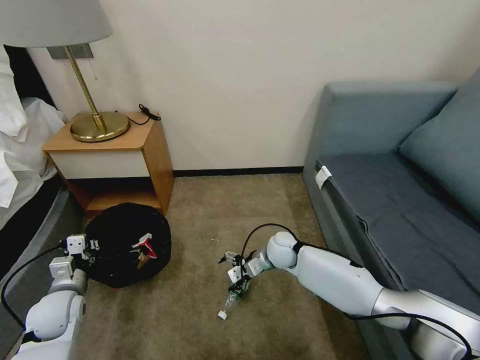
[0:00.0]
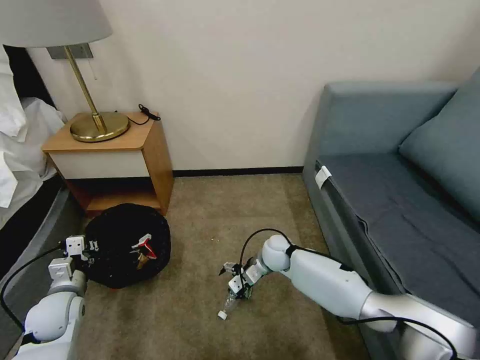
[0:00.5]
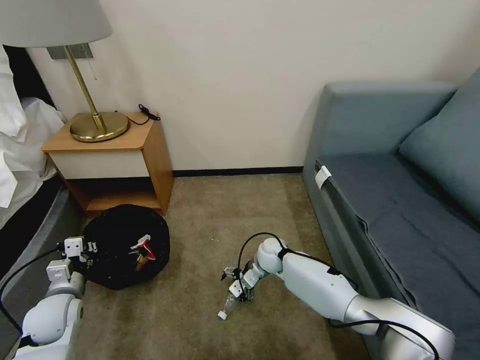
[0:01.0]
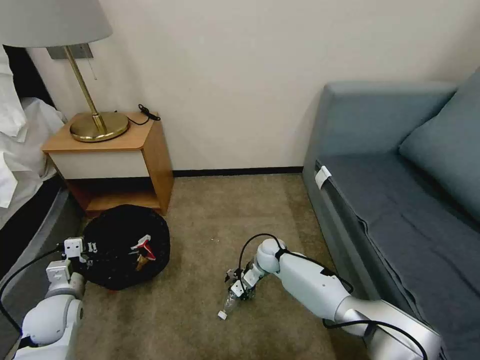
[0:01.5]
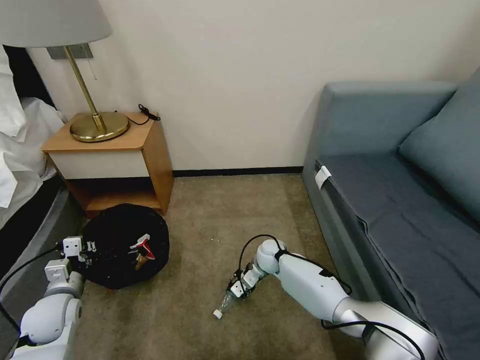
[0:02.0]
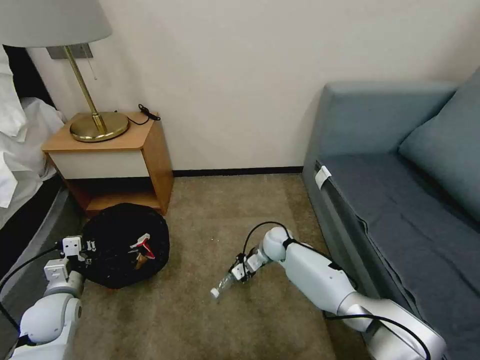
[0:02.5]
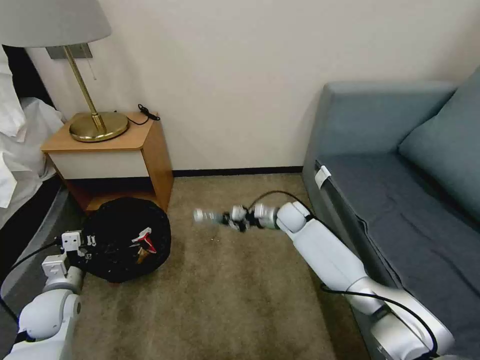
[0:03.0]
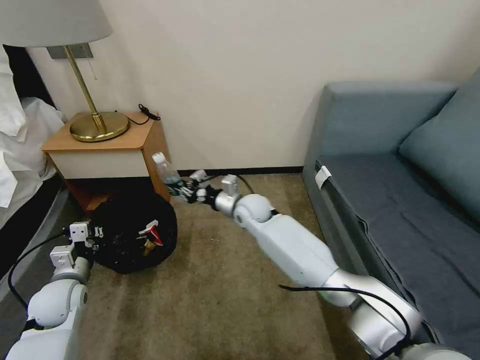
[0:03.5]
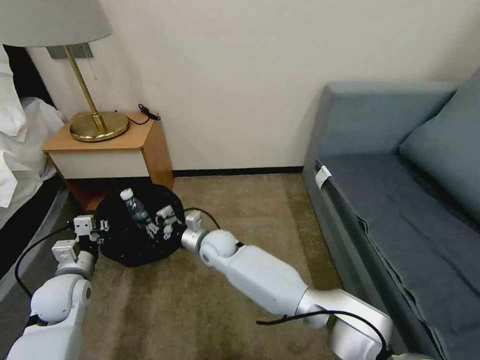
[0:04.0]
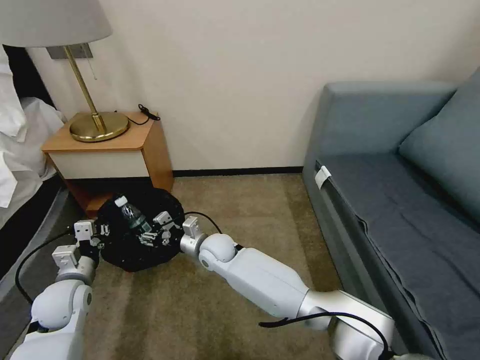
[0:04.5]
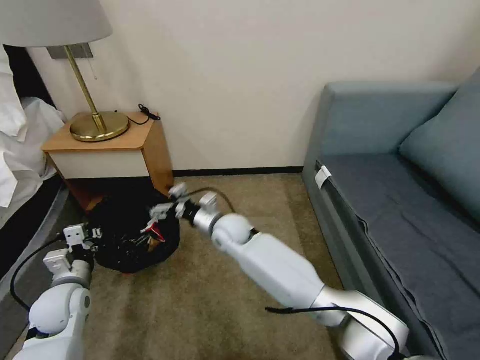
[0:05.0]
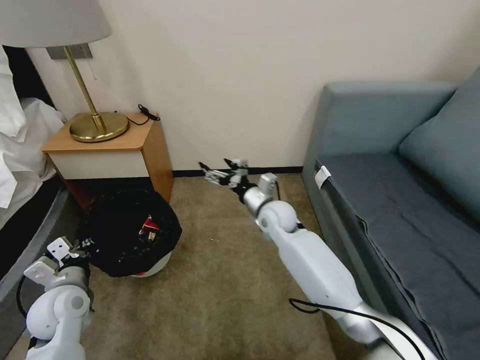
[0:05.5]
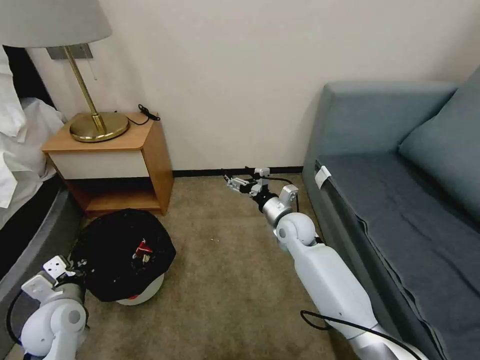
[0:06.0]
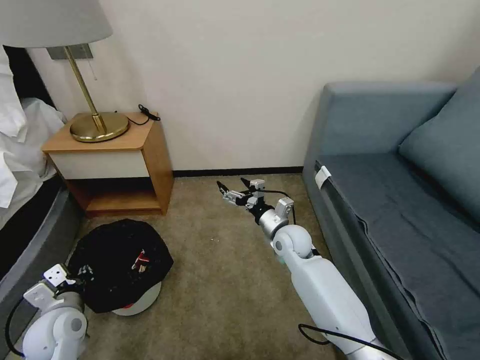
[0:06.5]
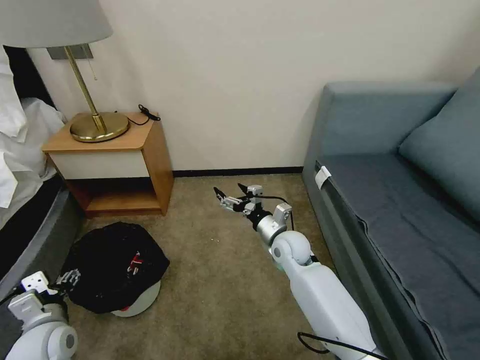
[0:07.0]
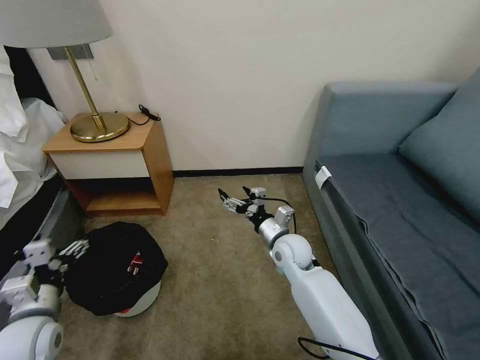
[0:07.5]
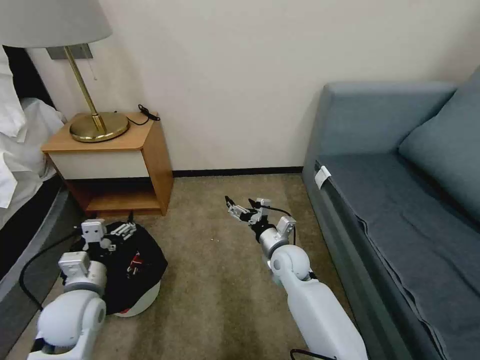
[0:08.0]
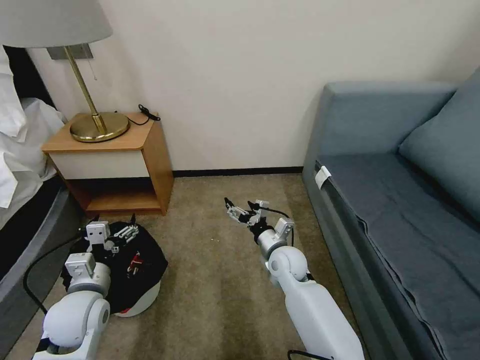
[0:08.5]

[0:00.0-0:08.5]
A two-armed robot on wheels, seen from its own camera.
Task of the whole recording: Pick up the trash bin, then pick up the garbage on the floor and place it into the trash bin.
0:00.0 to 0:02.0: The right gripper travels downward by roughly 5 cm, and closes its fingers.
0:02.0 to 0:04.0: The right gripper is displaced to the left and upward by roughly 20 cm. The left gripper moves about 5 cm.
0:04.0 to 0:06.5: The right gripper moves to the right, some 20 cm, and opens, while the left gripper travels backward by approximately 5 cm.
0:06.5 to 0:08.5: The left gripper shifts roughly 5 cm to the right, and opens up. The right gripper shifts by approximately 5 cm.
